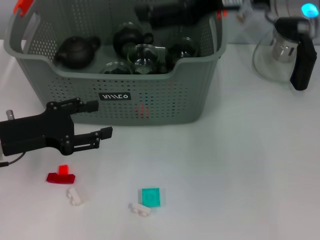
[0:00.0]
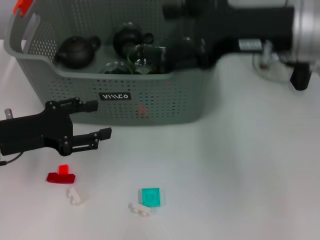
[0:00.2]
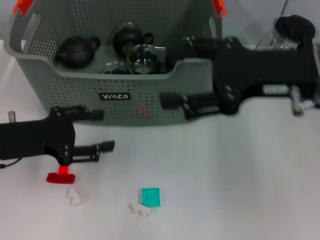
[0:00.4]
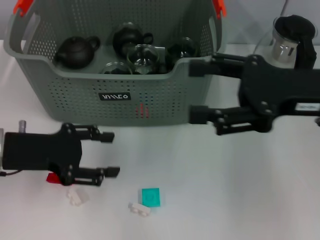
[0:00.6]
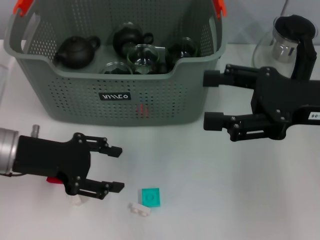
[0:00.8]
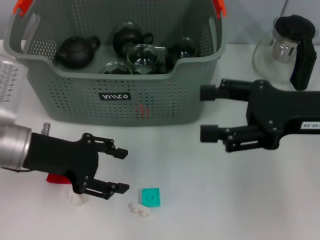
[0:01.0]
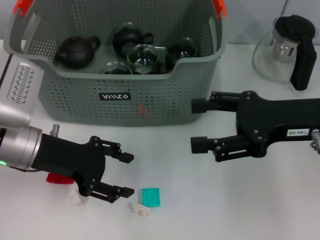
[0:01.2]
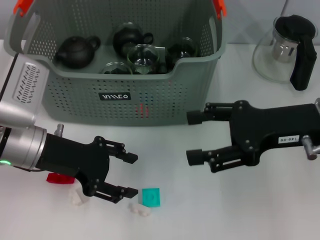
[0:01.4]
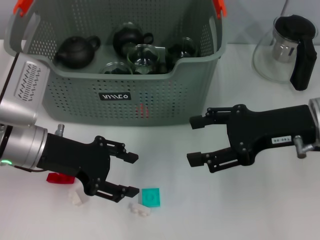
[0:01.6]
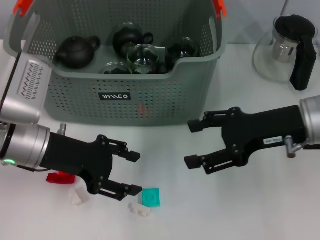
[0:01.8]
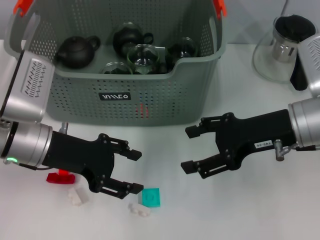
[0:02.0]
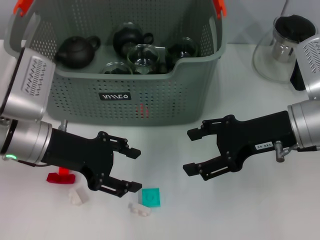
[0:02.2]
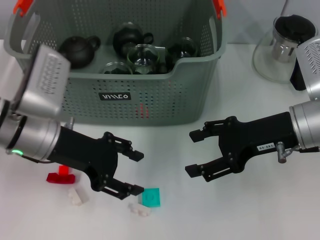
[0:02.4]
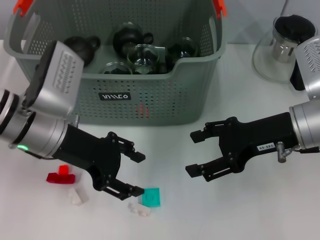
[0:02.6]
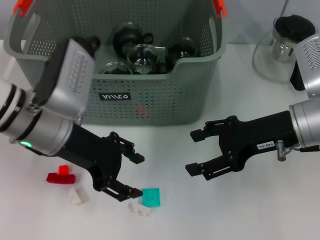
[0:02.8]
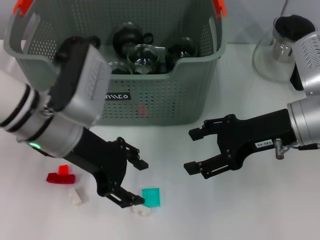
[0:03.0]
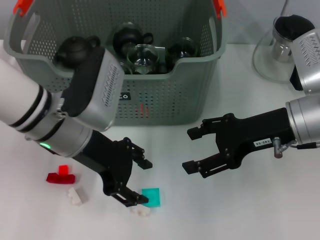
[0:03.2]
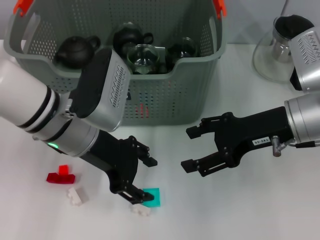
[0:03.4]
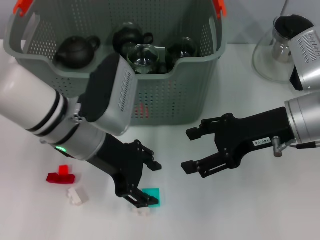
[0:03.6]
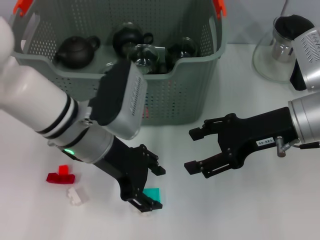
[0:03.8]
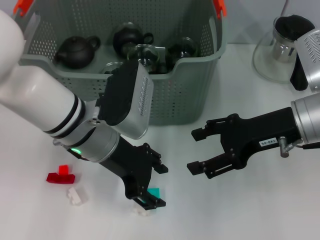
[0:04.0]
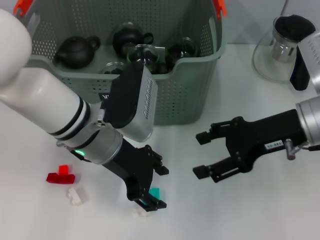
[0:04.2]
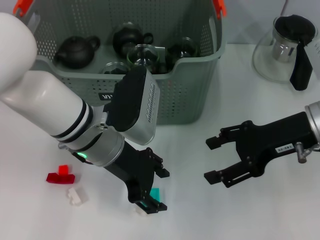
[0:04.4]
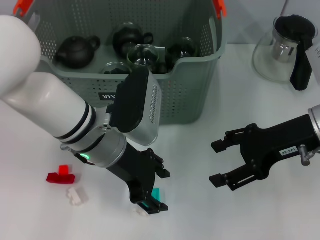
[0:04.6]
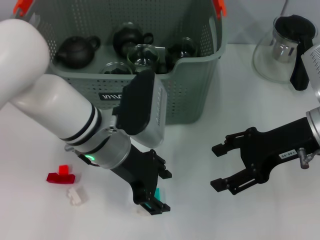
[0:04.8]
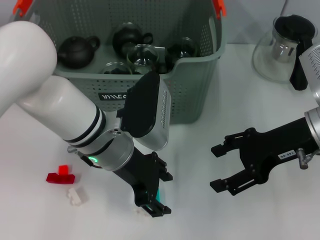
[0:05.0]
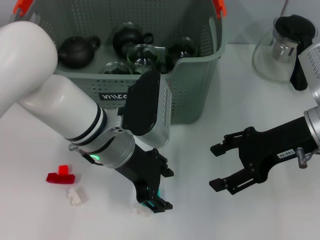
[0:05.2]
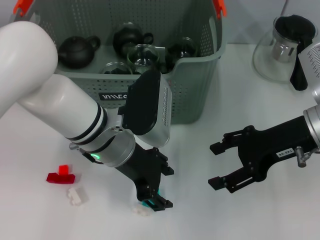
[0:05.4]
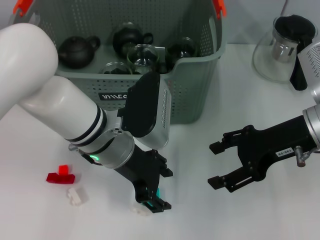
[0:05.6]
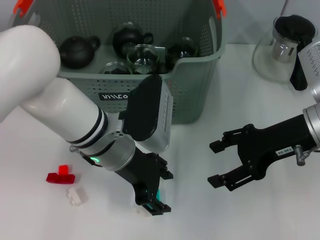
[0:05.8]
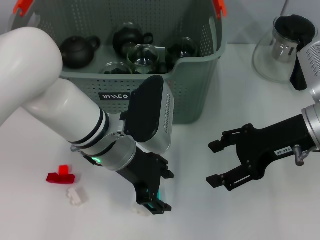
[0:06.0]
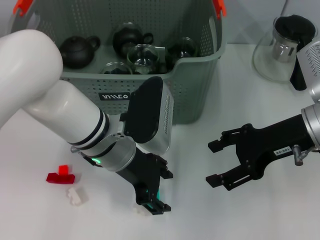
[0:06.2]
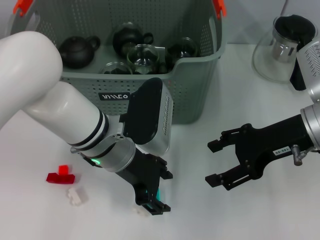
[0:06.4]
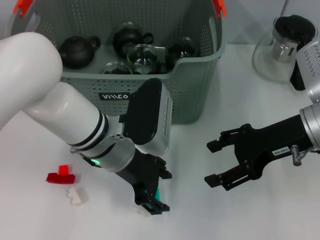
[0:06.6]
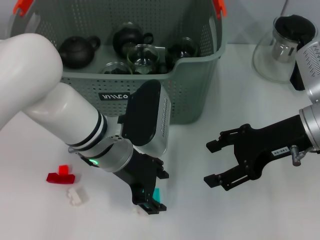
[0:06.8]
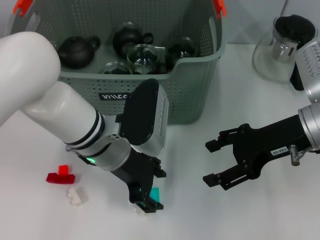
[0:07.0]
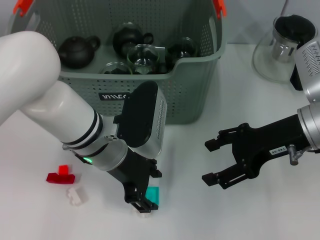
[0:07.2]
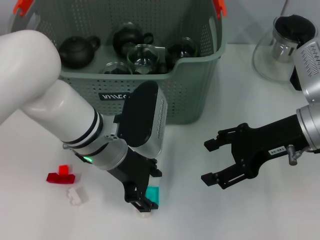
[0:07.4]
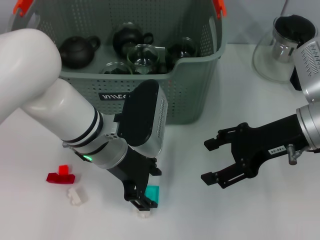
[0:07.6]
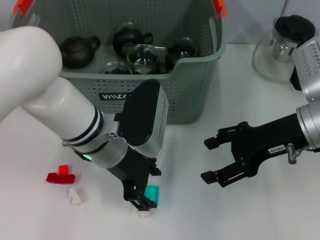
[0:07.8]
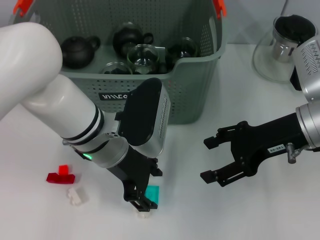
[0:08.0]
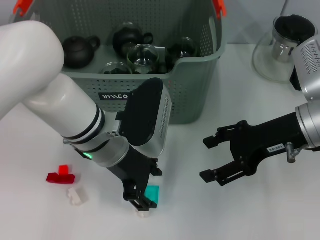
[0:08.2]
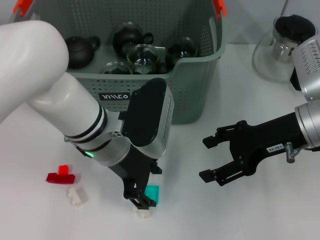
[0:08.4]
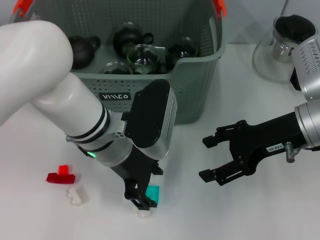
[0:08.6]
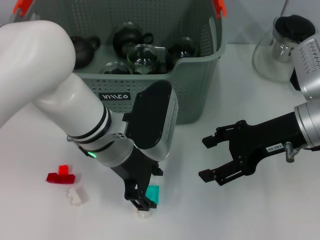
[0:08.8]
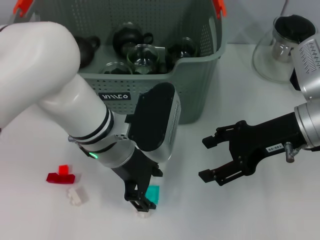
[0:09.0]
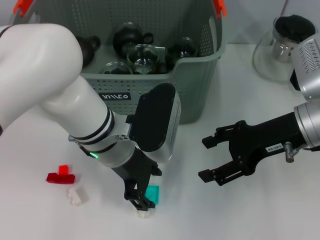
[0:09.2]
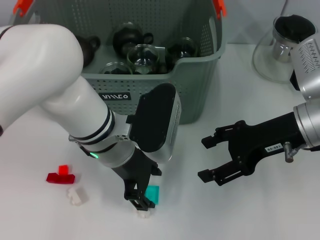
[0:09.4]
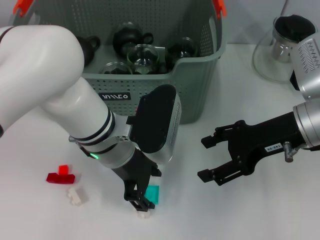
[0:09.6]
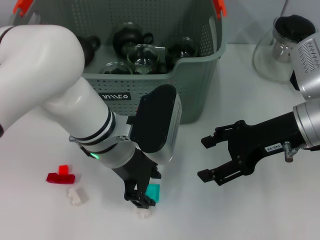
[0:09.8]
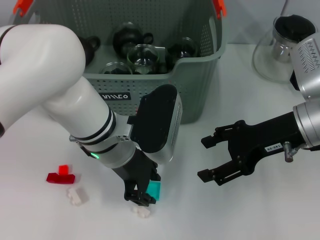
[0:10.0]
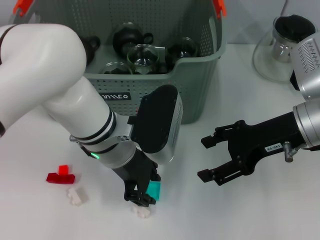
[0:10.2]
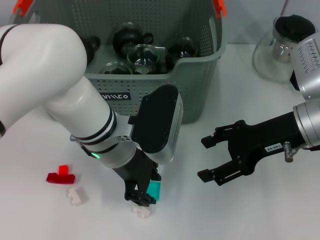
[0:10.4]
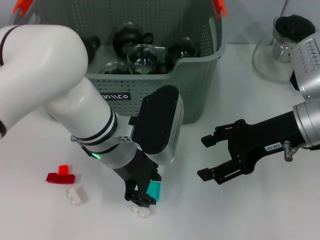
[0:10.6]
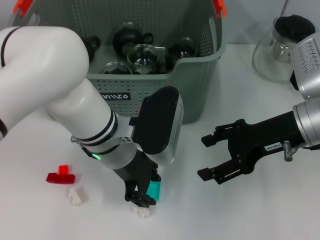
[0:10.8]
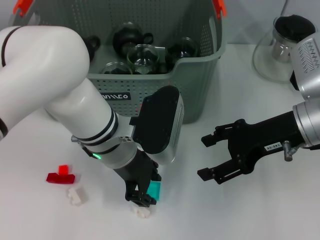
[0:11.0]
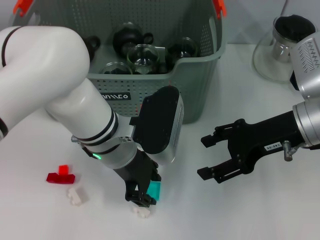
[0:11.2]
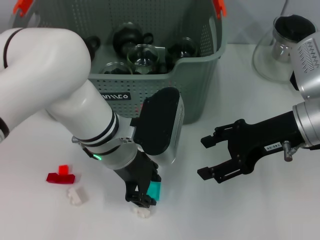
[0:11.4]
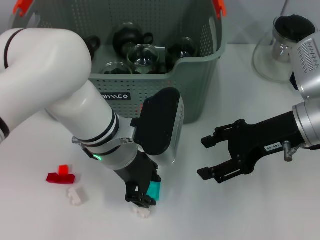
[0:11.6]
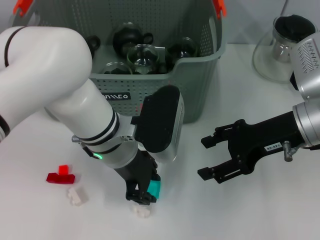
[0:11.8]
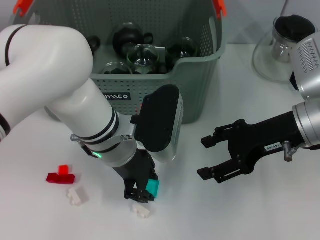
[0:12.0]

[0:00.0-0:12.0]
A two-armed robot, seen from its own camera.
Task of the whole recording: pick up the teacup on the table and place it into the storage bin, pick up the block on the table and place it into the storage bin.
0:00.0 to 0:01.6: The left gripper moves to the right, about 5 cm. The right gripper travels downward and to the right by about 15 cm.
0:01.6 to 0:03.0: The left gripper heads to the right, covering approximately 5 cm.
0:03.0 to 0:04.4: The left gripper travels to the right by approximately 5 cm.
0:04.4 to 0:06.0: There are only small adjustments of the grippers.
0:06.0 to 0:07.6: Both grippers stay put.
0:07.6 to 0:09.0: The grippers move only a little.
0:09.0 to 0:12.0: Neither gripper changes place.

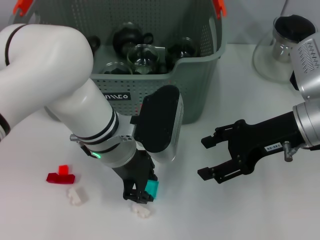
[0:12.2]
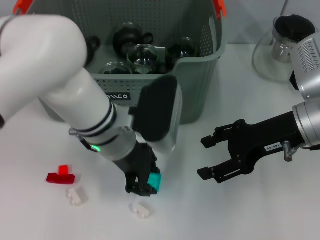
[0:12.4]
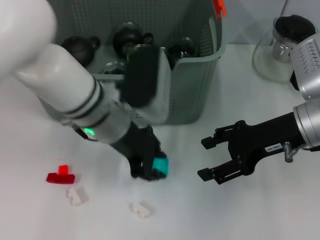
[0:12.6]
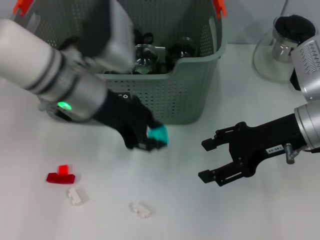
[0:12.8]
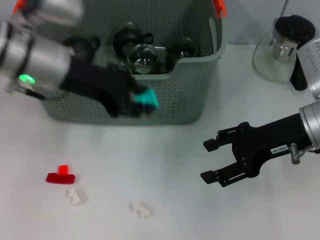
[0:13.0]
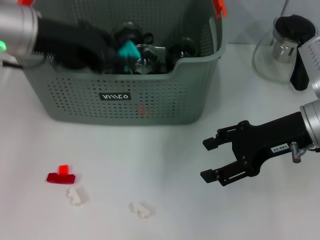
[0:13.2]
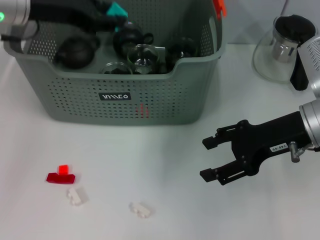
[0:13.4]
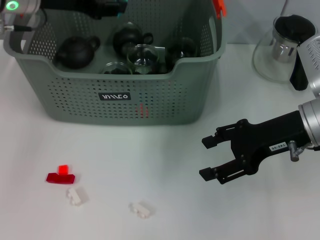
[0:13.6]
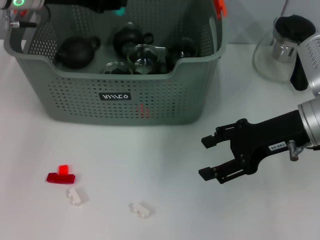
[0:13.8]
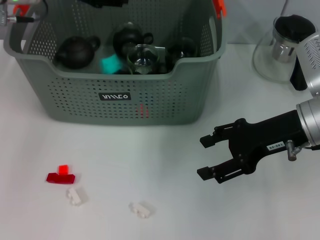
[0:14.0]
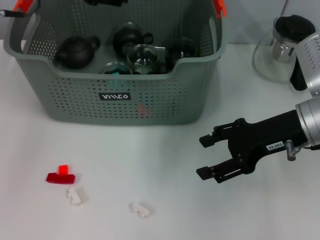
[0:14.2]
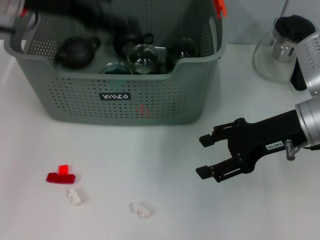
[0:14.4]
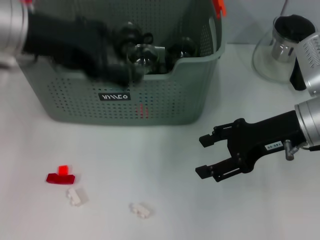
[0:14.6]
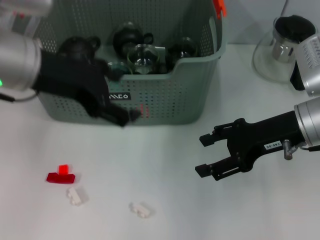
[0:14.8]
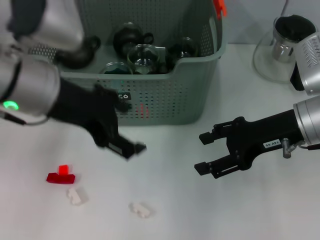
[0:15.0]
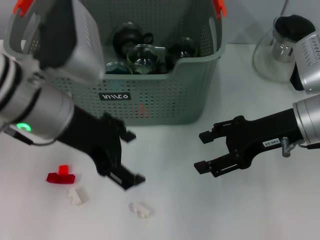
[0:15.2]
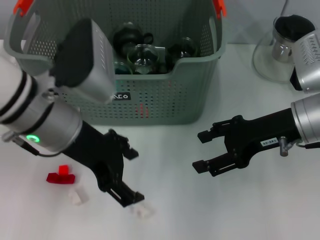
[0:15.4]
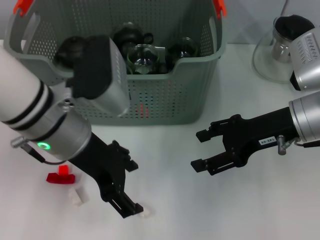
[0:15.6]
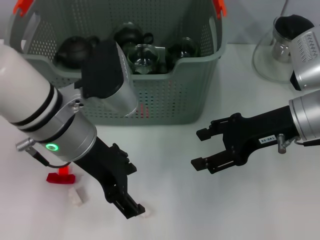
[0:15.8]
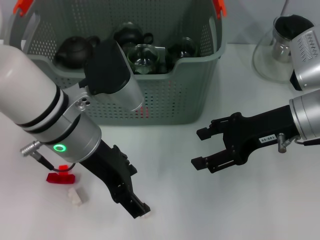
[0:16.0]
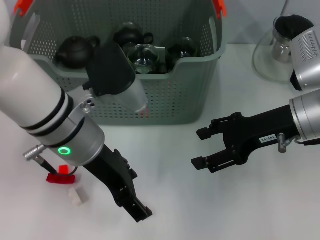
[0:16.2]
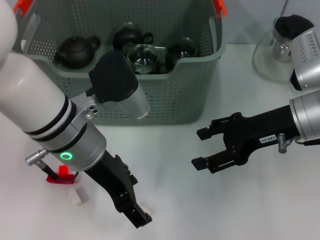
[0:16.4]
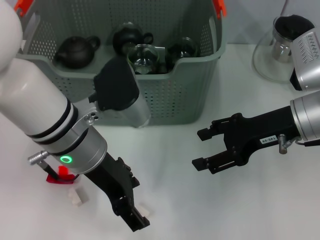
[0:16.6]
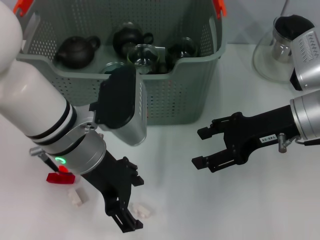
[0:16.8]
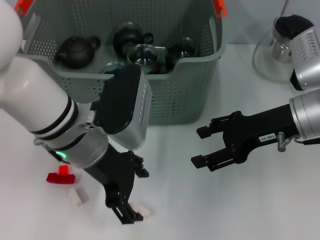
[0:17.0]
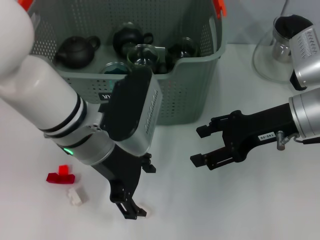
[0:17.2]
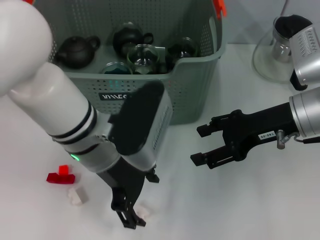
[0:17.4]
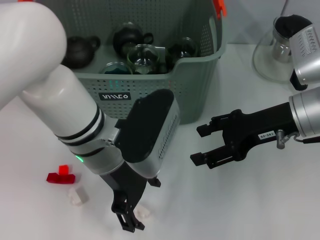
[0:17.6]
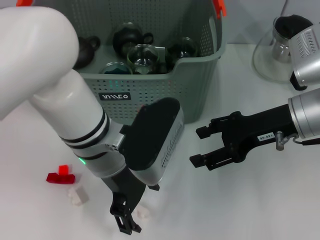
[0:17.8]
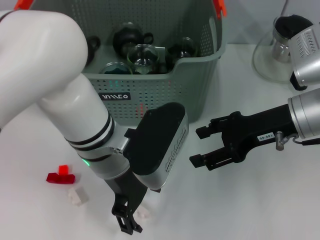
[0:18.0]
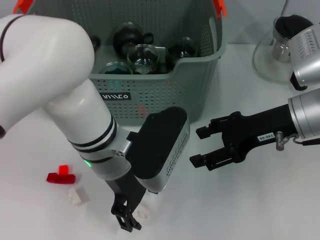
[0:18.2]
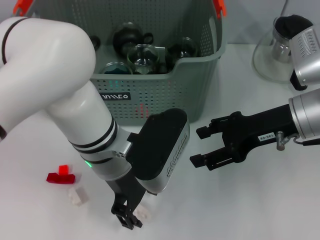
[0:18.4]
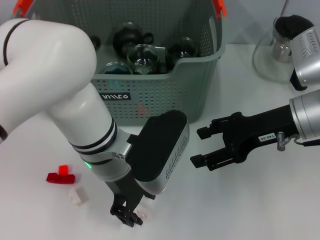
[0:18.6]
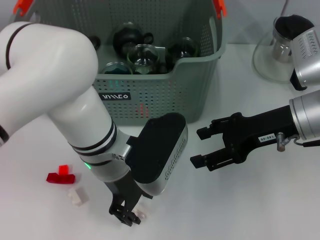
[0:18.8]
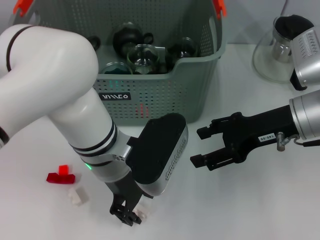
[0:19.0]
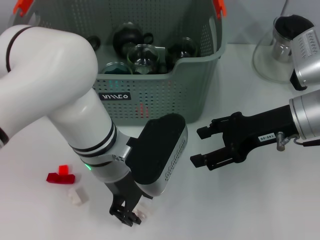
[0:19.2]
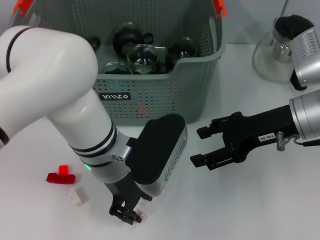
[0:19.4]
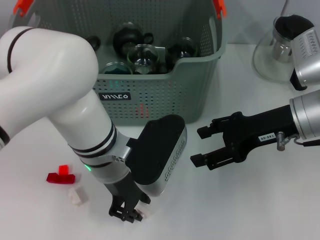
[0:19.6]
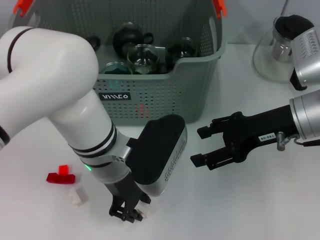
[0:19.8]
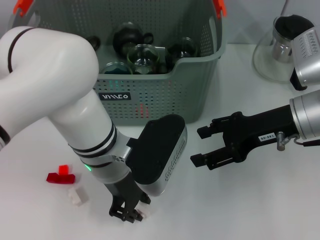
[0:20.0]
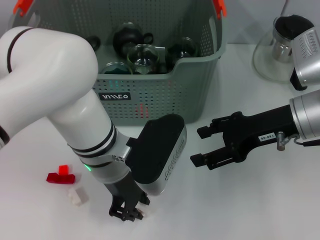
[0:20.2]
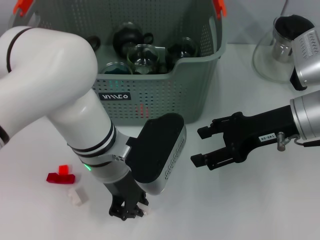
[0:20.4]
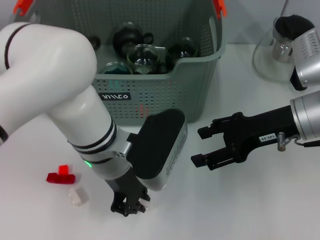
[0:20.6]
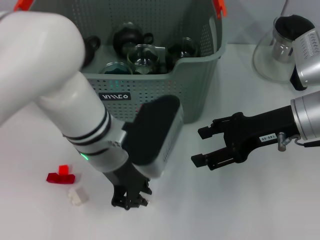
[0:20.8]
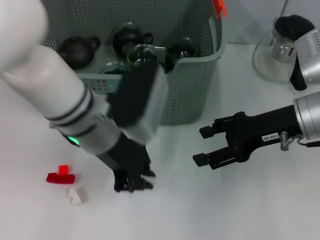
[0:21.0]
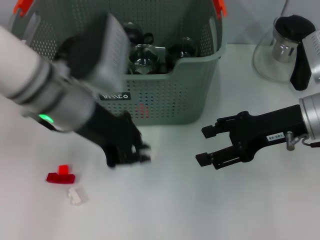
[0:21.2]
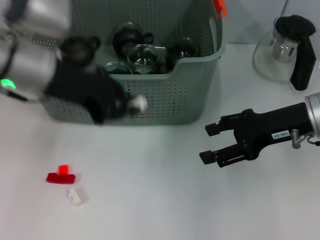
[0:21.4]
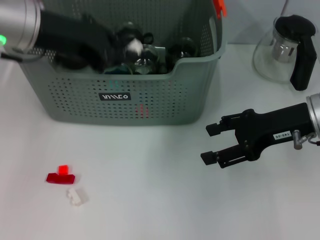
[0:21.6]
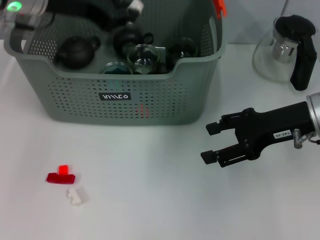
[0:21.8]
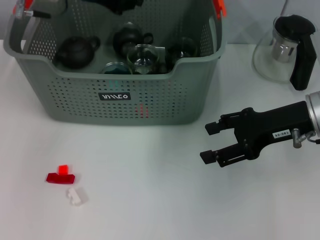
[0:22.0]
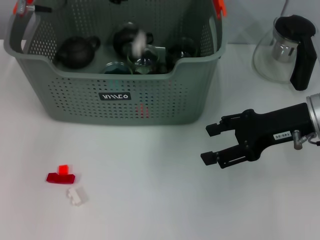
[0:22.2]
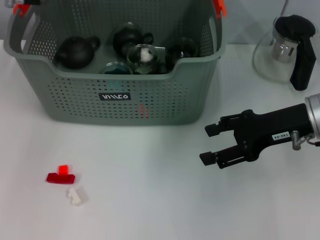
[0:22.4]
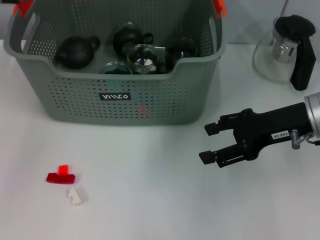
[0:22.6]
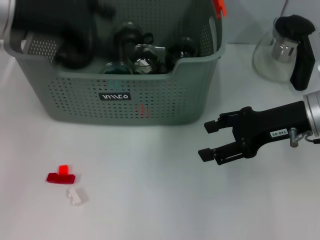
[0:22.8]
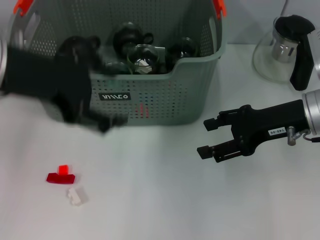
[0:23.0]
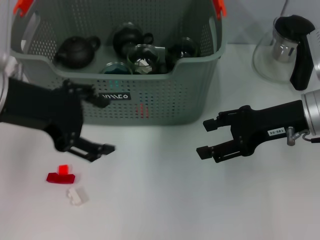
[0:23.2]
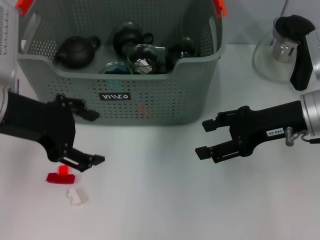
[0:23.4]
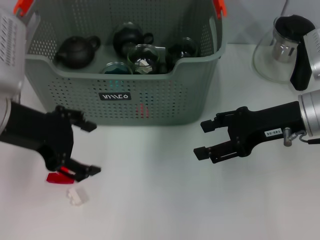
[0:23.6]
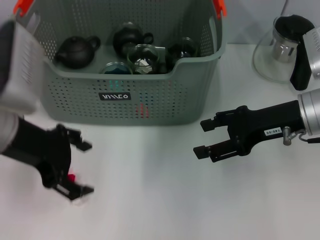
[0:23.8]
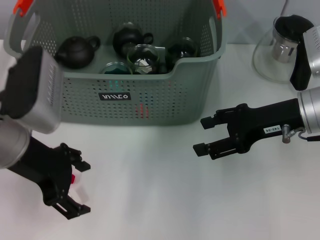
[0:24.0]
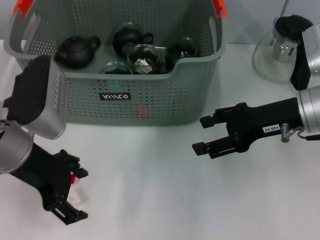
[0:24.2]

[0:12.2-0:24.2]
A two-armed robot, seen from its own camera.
Task of the whole recording: pick up the teacup on the table and place it into the storage bin, pick up the block on the table and place it into the storage bin.
Step, 0:12.4 to 0:13.8: Place the dark blue block in the storage box with left gripper.
Step, 0:14.2 to 0:20.4: Grasp the white block with left gripper.
Step, 0:20.6 to 0:22.2: Place the white block in the storage box with left gripper.
0:12.2 to 0:13.8: The left gripper heads to the left, upward and forward, covering some 20 cm.
0:13.8 to 0:15.2: The left gripper goes roughly 15 cm backward and to the right, and opens.
0:15.2 to 0:16.6: The left gripper travels downward by about 5 cm.
0:18.2 to 0:19.8: The left gripper closes.
0:19.8 to 0:21.2: The left gripper travels upward and to the left by roughly 10 cm.
0:21.2 to 0:22.6: The left gripper is displaced upward, forward and to the left by approximately 15 cm, and opens up.
0:22.6 to 0:24.2: The left gripper heads downward and backward, covering some 15 cm, and opens its fingers.
